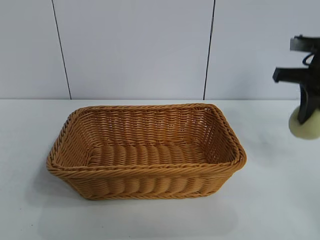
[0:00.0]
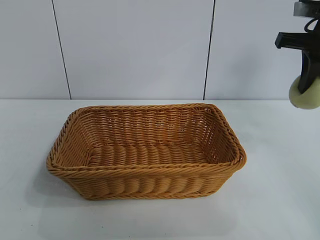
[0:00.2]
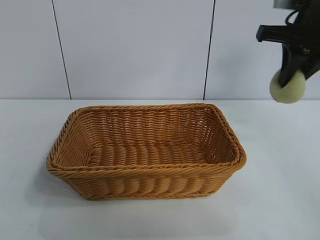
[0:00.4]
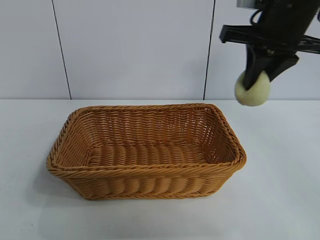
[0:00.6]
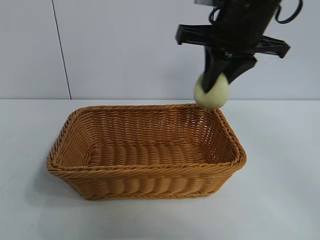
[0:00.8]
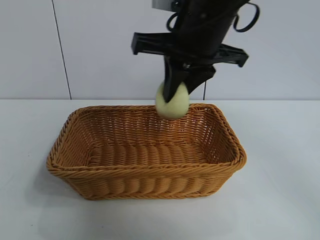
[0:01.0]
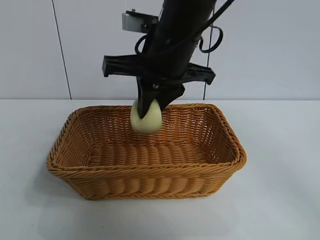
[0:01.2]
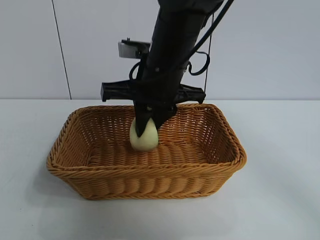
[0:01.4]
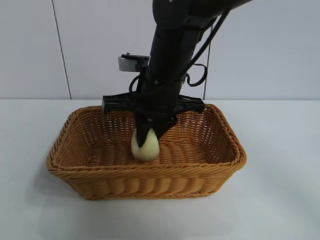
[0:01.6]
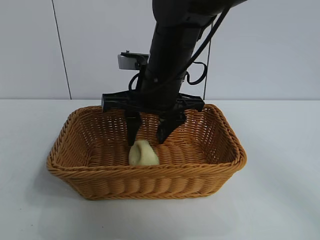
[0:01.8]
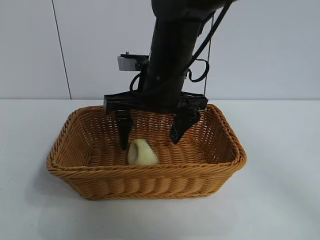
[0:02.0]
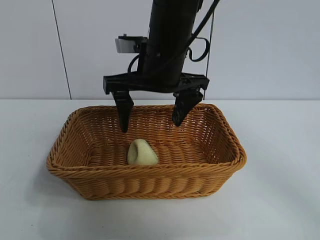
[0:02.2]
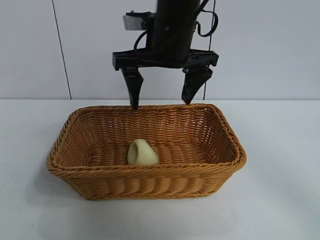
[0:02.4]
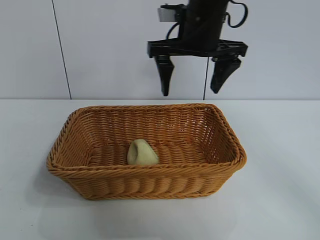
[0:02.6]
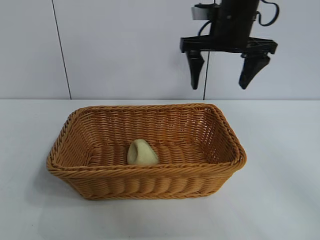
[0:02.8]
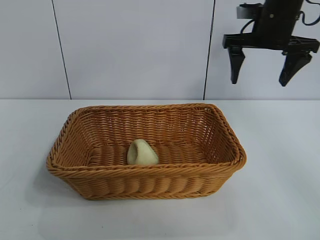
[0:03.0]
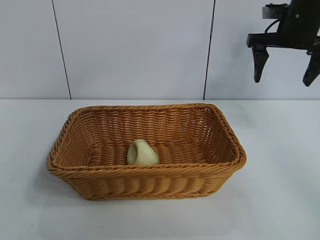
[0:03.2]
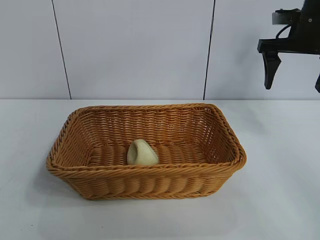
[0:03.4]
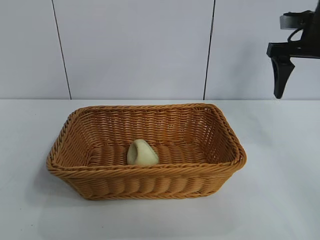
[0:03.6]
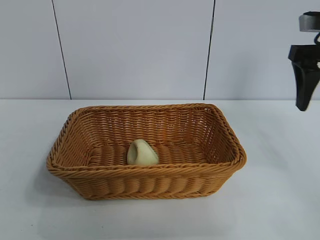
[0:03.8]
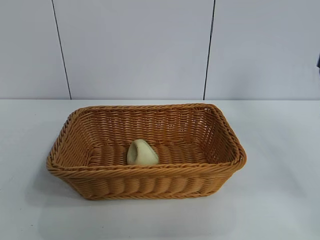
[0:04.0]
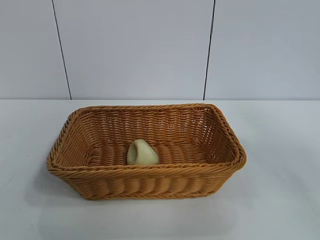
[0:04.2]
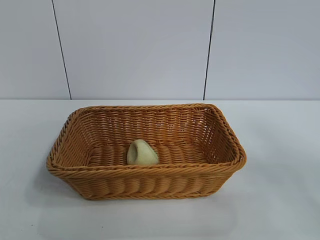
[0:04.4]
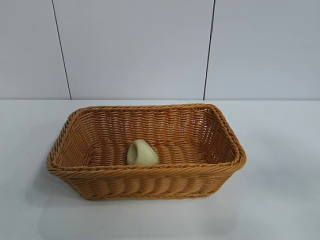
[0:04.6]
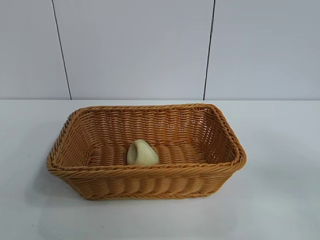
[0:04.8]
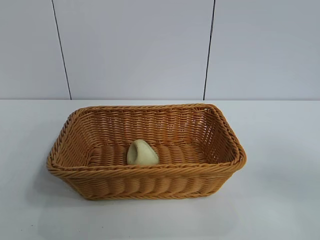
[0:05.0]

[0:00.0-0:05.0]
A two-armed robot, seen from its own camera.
Task of the whole recording: pick up the egg yolk pastry and put it into the basket.
Step, 0:00.0 to 0:02.0: Place the egg yolk pastry in the basket with right gripper.
